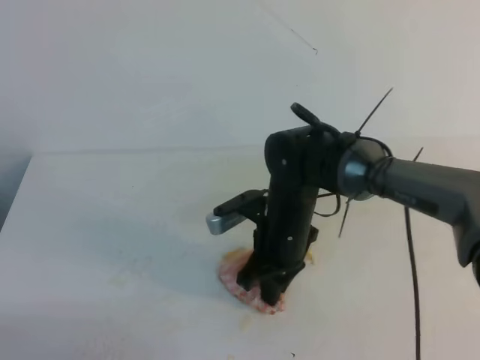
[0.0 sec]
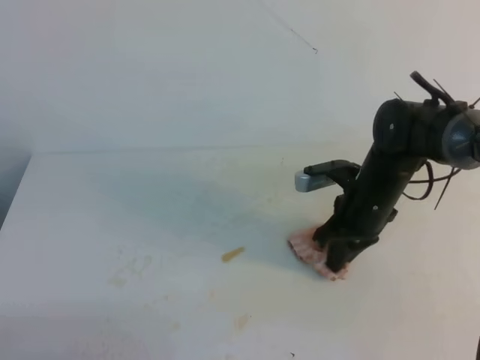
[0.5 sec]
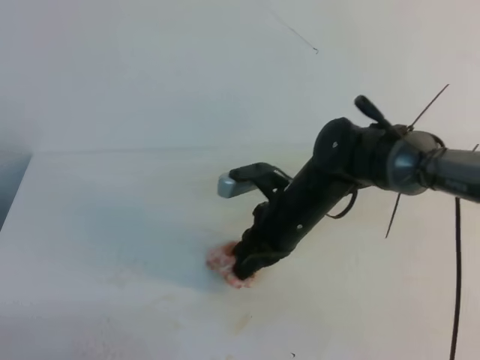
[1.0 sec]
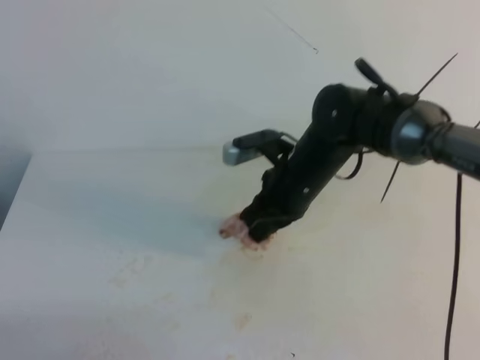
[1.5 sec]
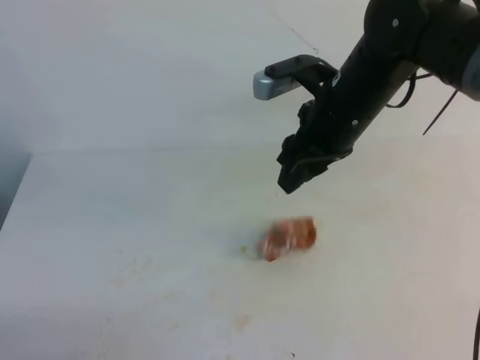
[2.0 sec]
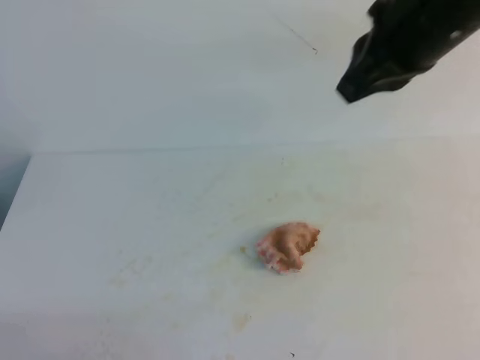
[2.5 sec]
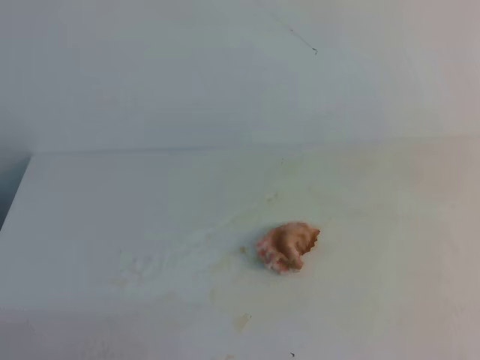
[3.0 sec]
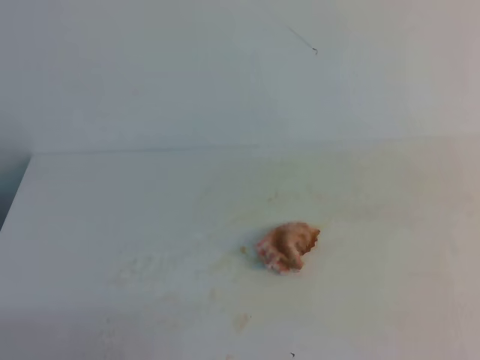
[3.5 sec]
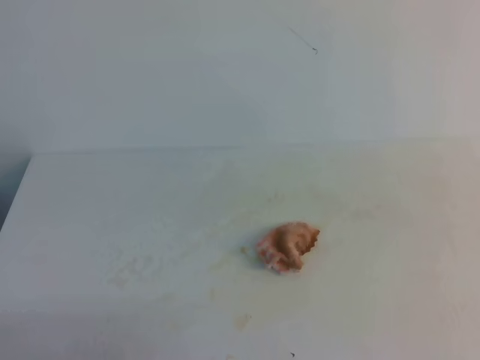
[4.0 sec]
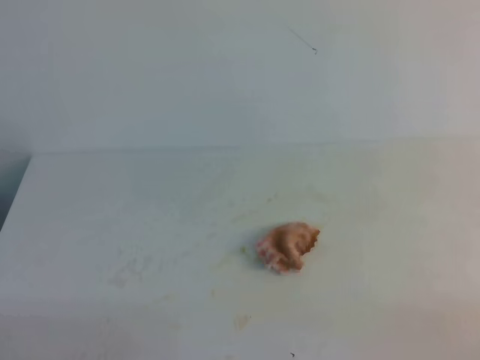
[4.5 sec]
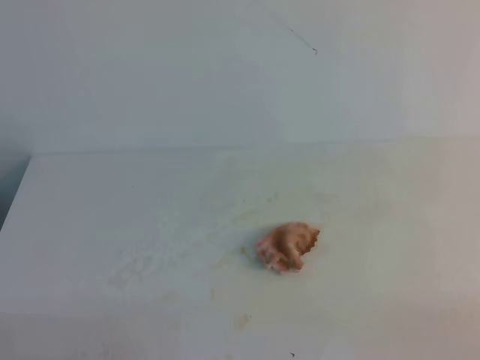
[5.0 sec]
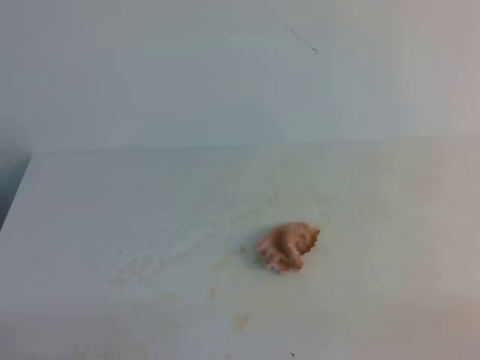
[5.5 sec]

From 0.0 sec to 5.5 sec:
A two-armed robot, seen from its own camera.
From 0.0 sec to 2.0 sec: The right gripper goes approximately 15 cm upward and to the right, and opens.
From 2.0 sec to 3.5 sec: The right gripper goes roughly 30 cm backward and to the right, and closes its fingers.

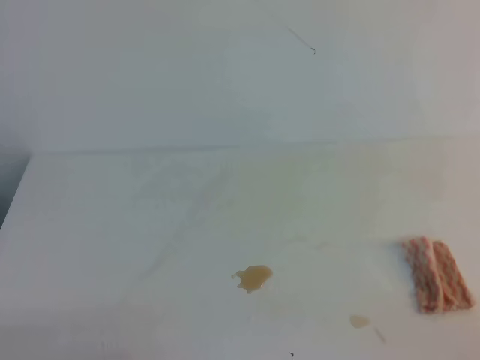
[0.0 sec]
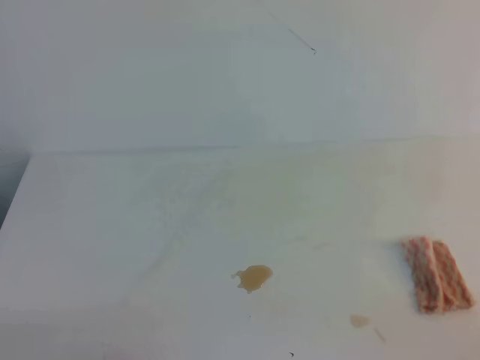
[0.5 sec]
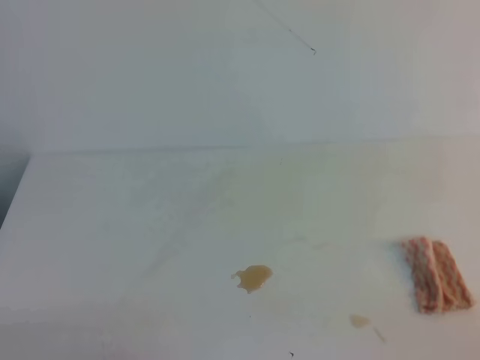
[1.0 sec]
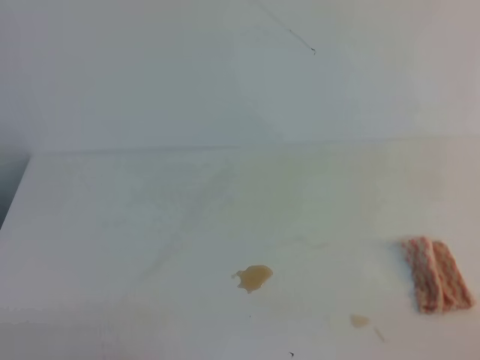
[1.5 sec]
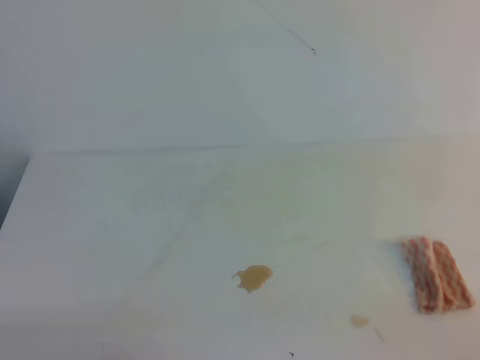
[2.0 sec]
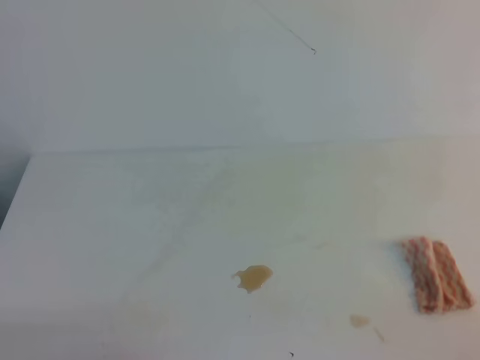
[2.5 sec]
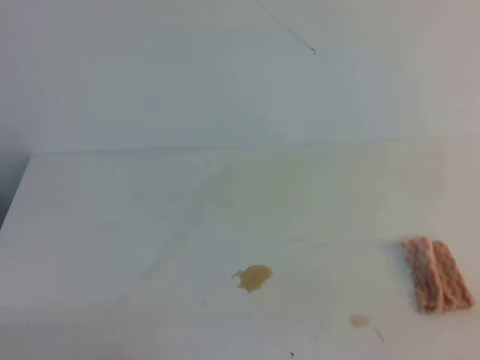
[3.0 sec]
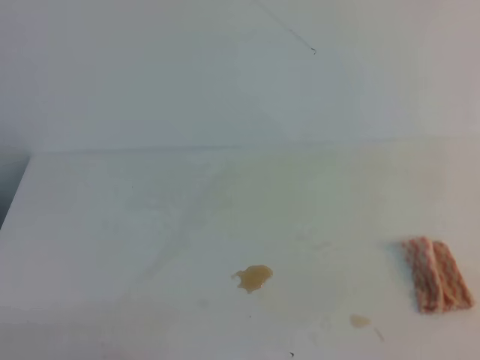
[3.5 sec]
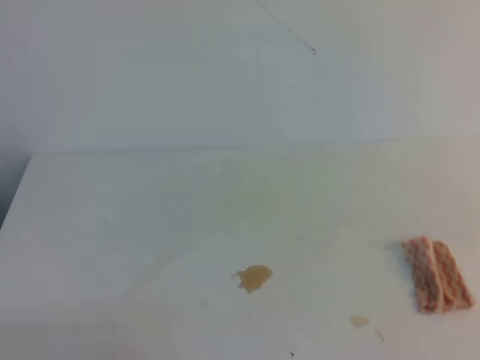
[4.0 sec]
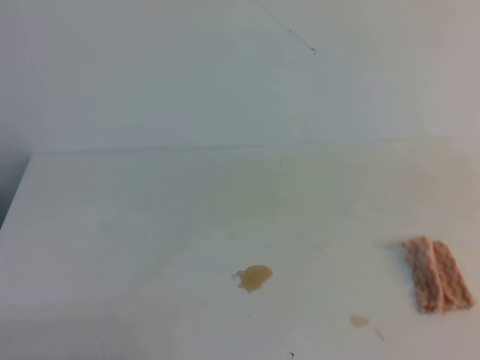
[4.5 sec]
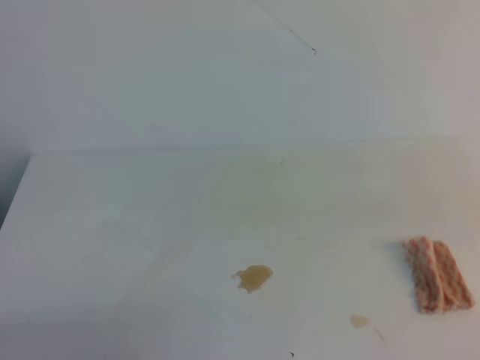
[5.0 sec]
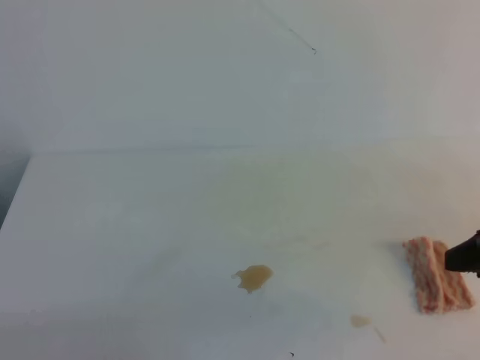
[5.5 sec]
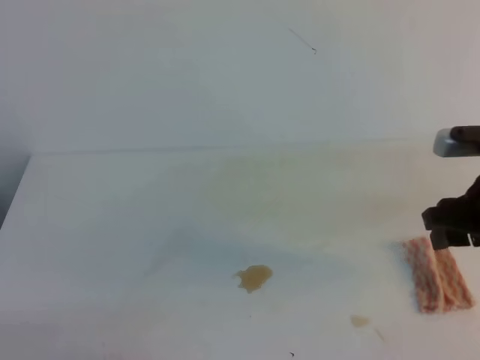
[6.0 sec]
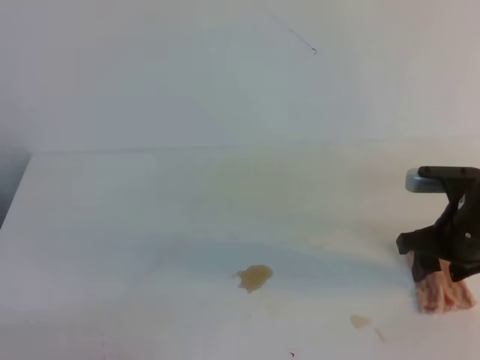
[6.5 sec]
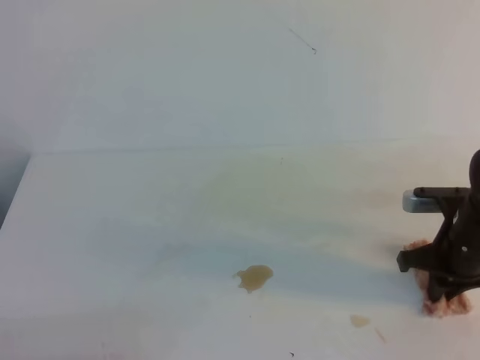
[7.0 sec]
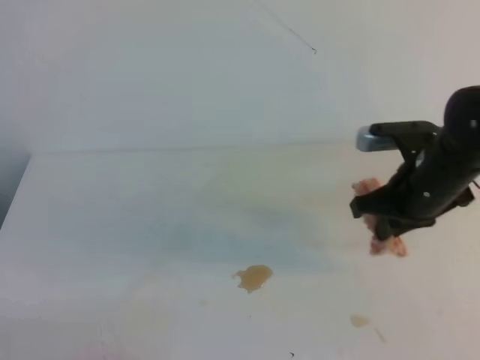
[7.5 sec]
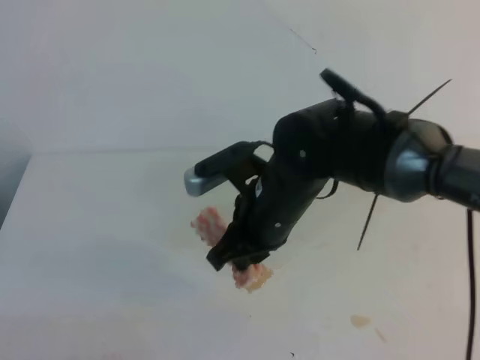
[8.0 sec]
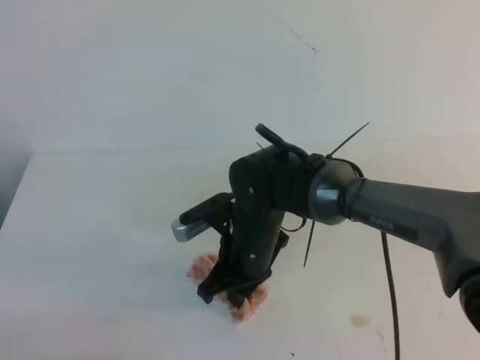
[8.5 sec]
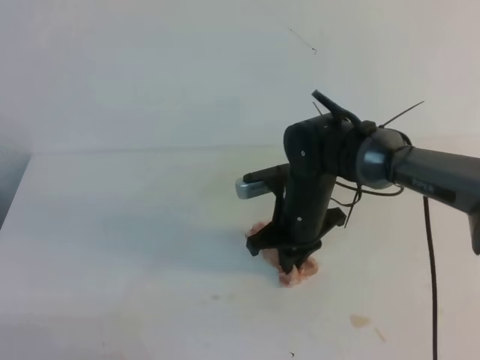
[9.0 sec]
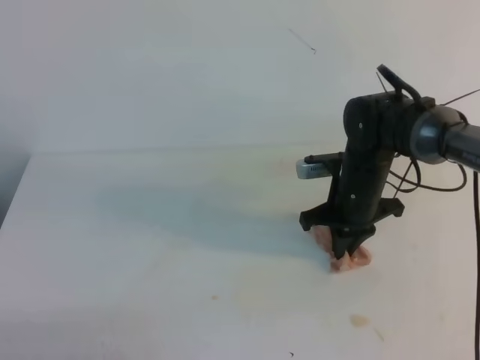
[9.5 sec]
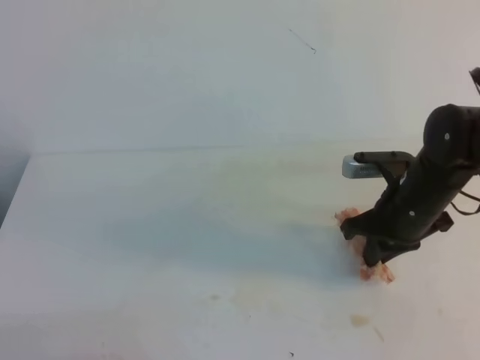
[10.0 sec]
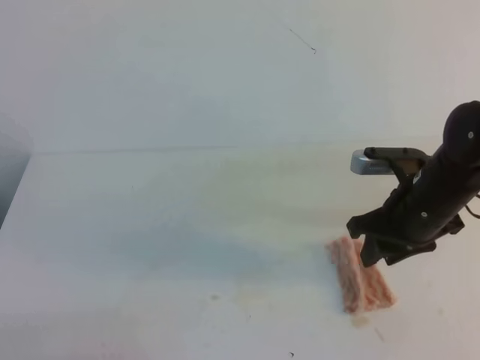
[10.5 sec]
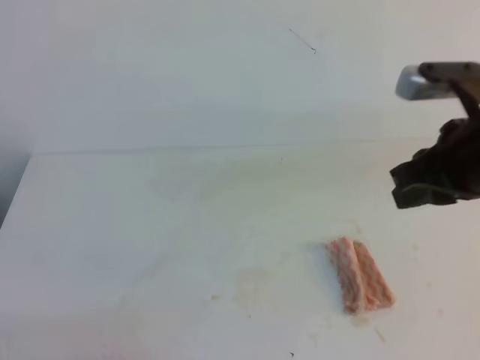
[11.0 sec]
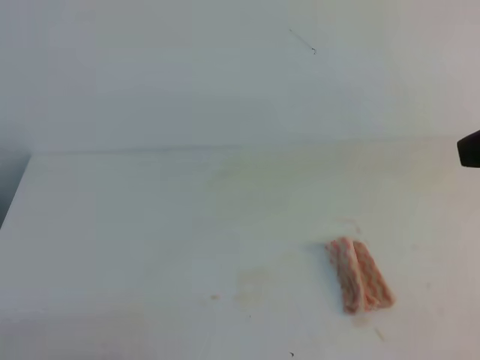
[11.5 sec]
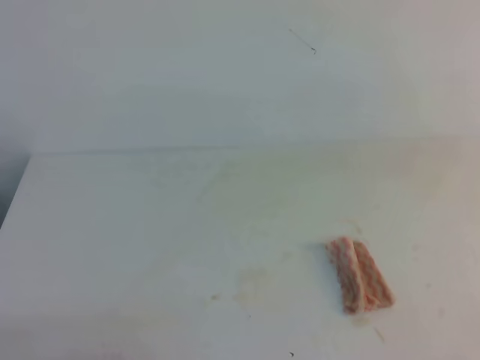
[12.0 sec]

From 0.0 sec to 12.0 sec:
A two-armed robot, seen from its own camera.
From 0.0 sec to 2.0 sec: Both grippers stay about where they are.
From 4.0 sec to 6.0 sec: The right gripper travels forward and downward by roughly 30 cm, and opens its fingers.
From 6.0 sec to 8.0 sec: The right gripper heads to the left, covering about 25 cm, and closes its fingers.
From 8.0 sec to 10.0 sec: The right gripper shifts about 15 cm to the right.
From 10.0 sec to 12.0 sec: The right gripper moves upward and backward, roughly 30 cm, and opens, then closes again.

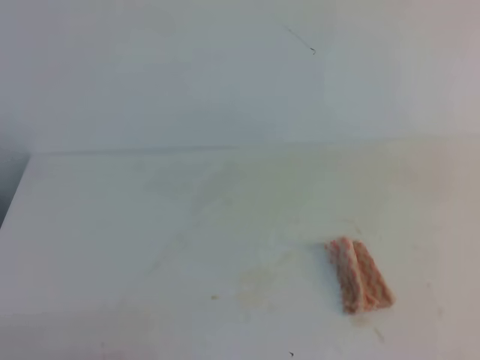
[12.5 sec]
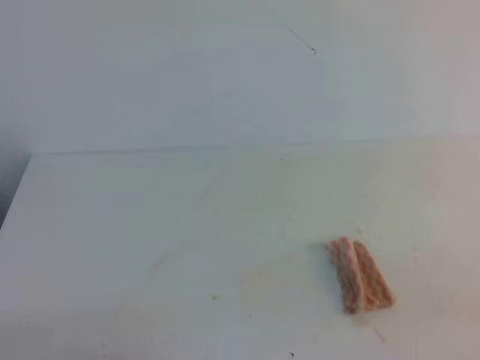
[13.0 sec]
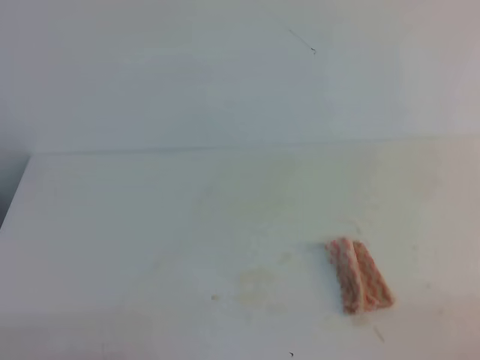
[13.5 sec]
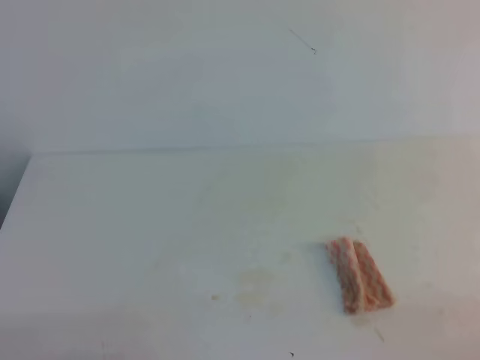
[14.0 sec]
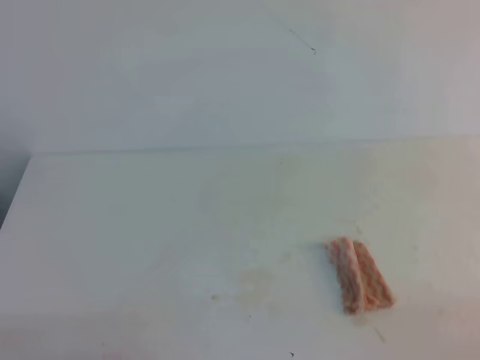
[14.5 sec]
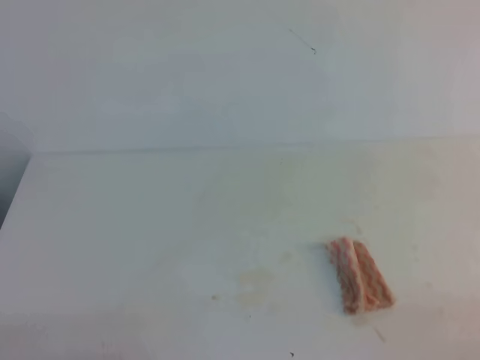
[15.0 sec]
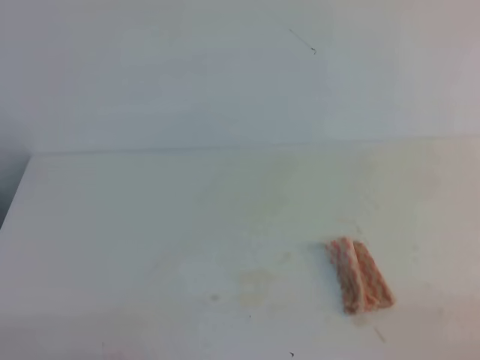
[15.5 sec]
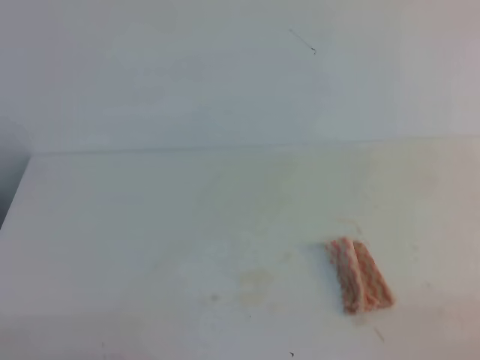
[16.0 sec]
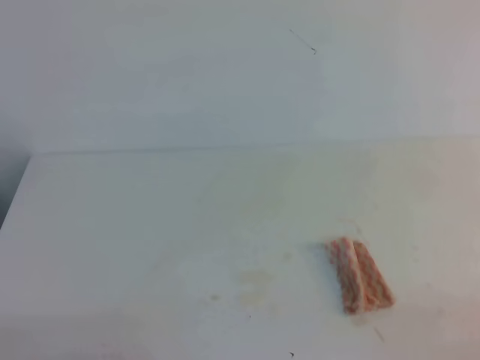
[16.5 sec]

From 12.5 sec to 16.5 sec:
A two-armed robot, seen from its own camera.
From 14.5 sec to 16.5 sec: The two grippers keep their place.
